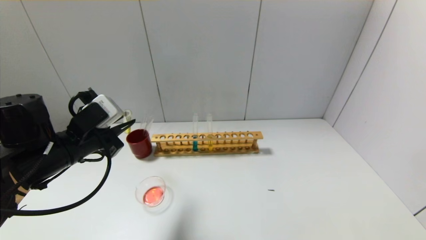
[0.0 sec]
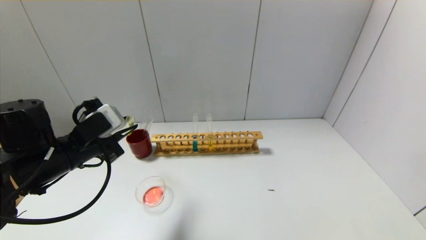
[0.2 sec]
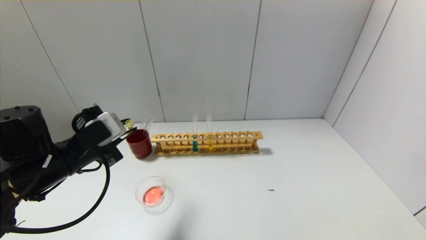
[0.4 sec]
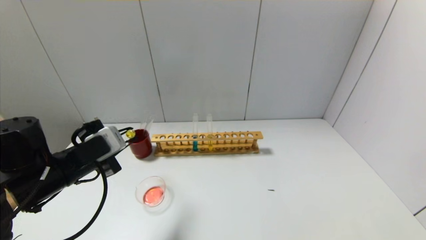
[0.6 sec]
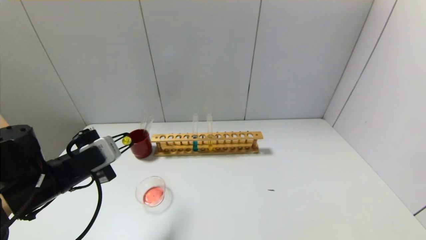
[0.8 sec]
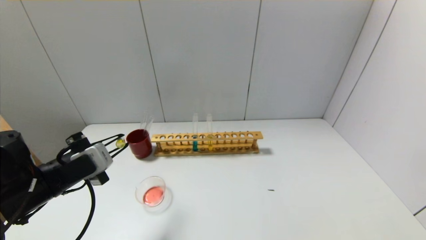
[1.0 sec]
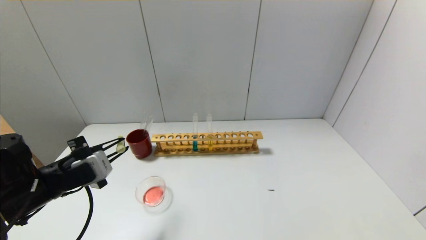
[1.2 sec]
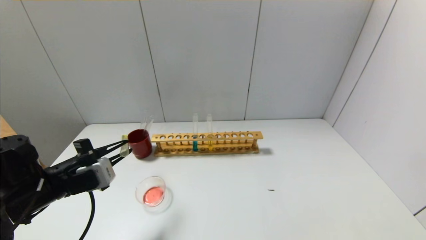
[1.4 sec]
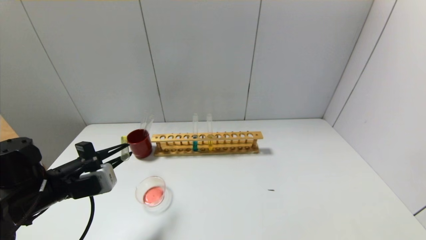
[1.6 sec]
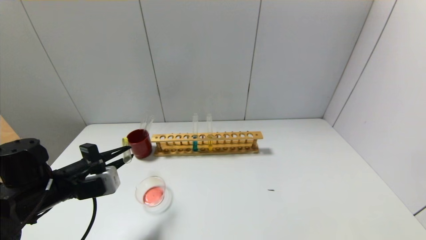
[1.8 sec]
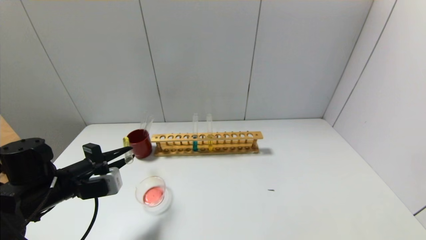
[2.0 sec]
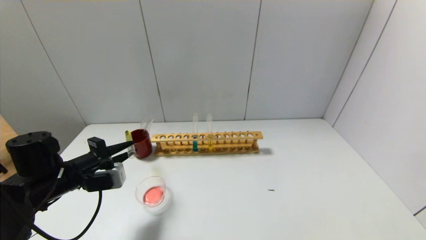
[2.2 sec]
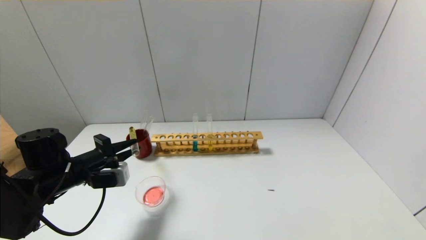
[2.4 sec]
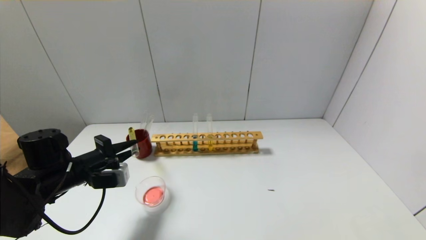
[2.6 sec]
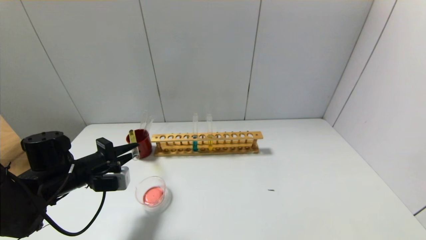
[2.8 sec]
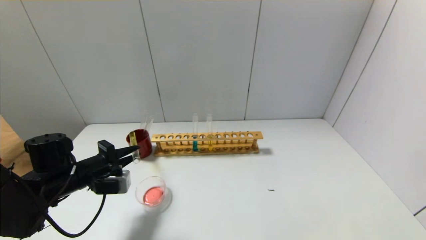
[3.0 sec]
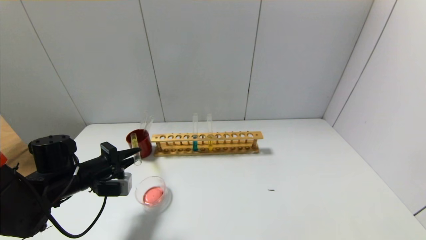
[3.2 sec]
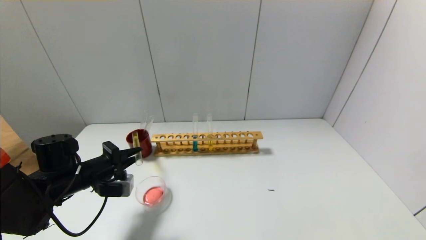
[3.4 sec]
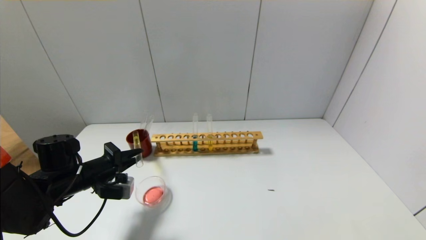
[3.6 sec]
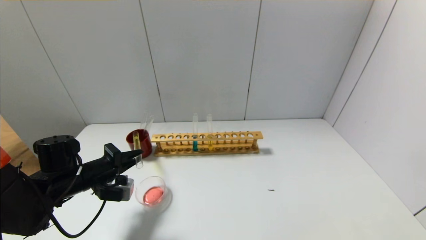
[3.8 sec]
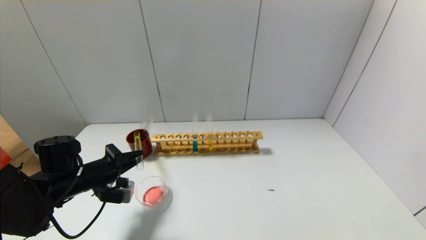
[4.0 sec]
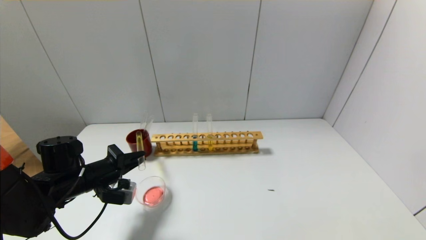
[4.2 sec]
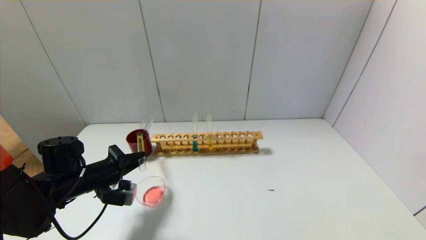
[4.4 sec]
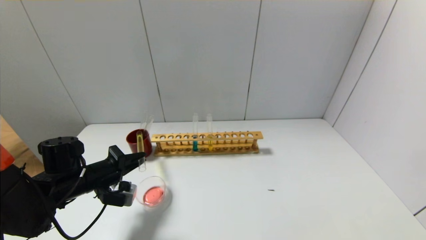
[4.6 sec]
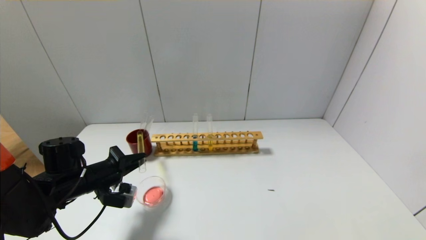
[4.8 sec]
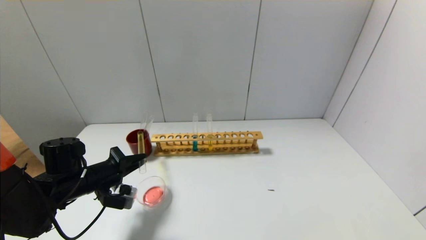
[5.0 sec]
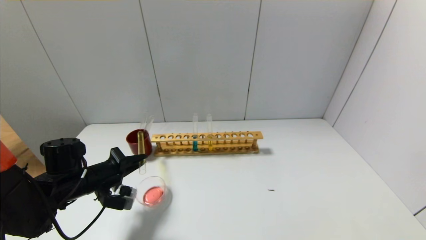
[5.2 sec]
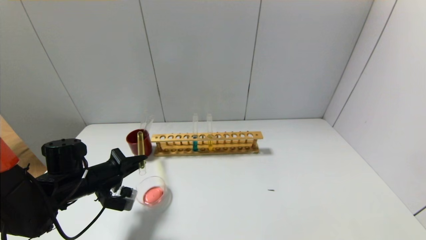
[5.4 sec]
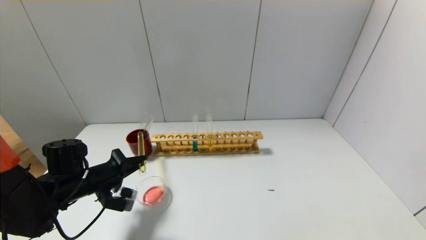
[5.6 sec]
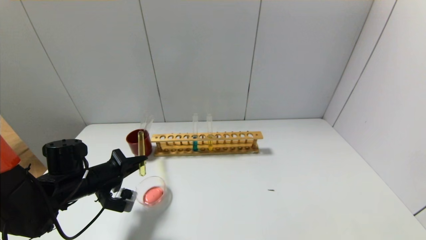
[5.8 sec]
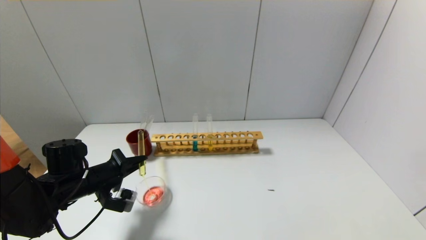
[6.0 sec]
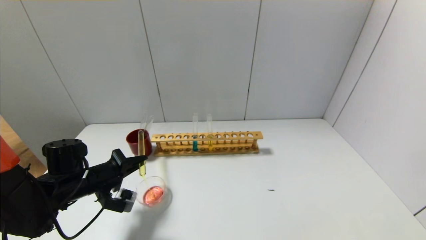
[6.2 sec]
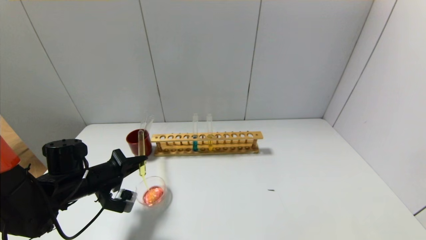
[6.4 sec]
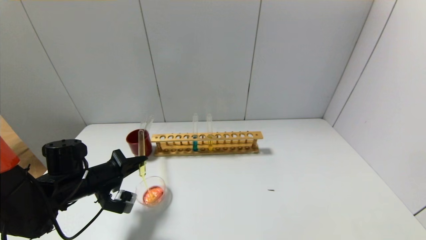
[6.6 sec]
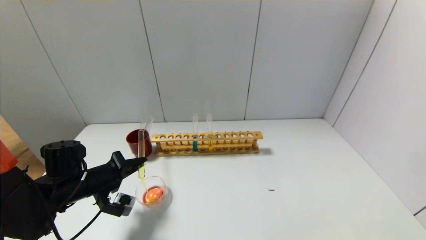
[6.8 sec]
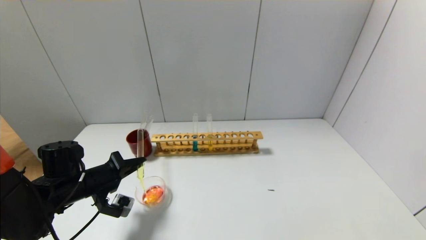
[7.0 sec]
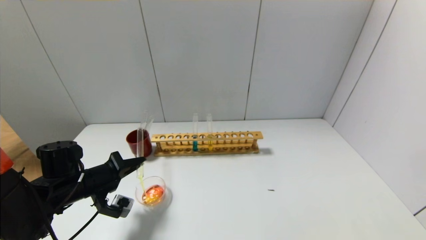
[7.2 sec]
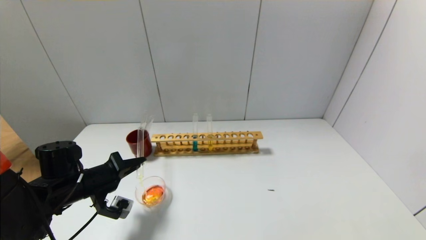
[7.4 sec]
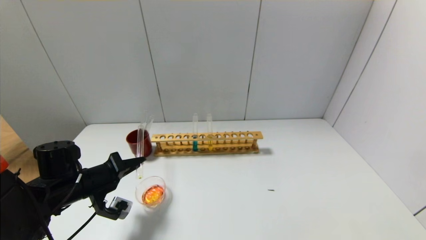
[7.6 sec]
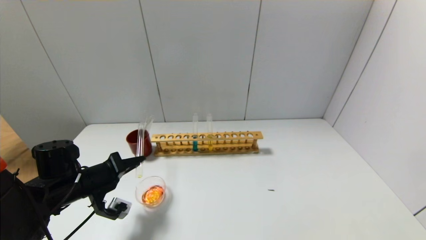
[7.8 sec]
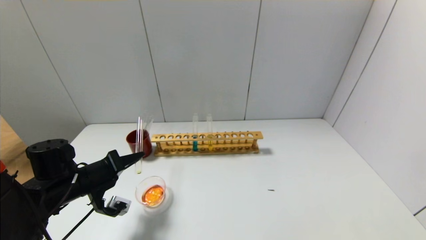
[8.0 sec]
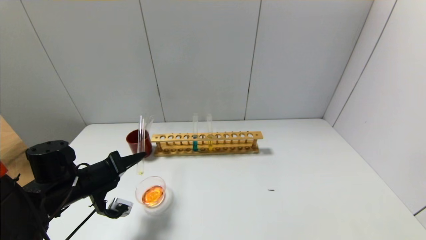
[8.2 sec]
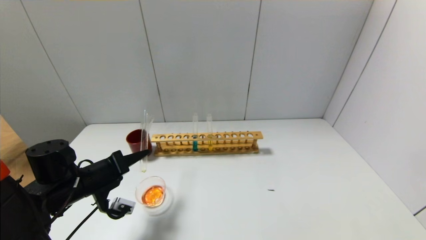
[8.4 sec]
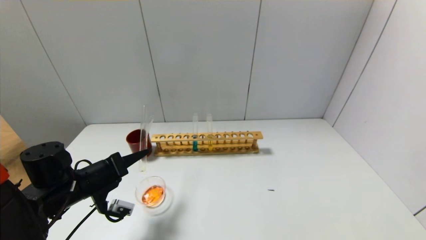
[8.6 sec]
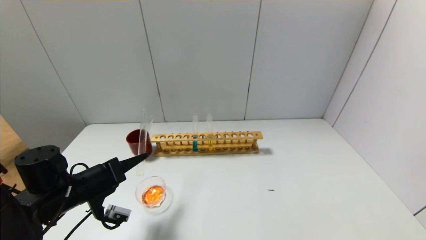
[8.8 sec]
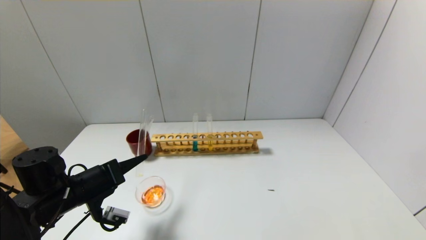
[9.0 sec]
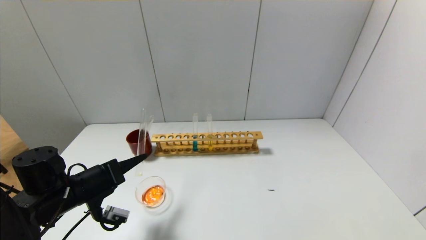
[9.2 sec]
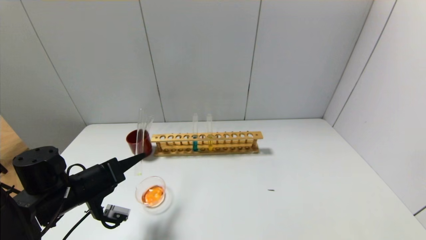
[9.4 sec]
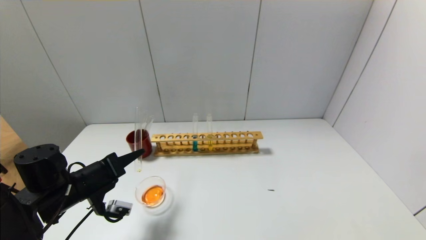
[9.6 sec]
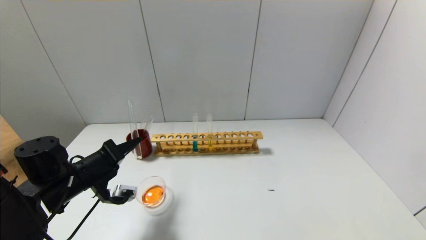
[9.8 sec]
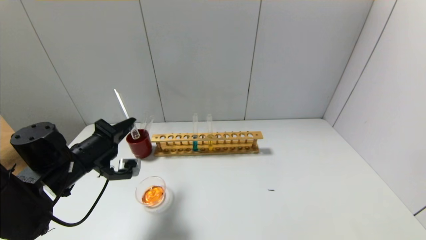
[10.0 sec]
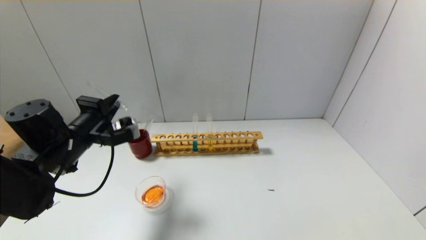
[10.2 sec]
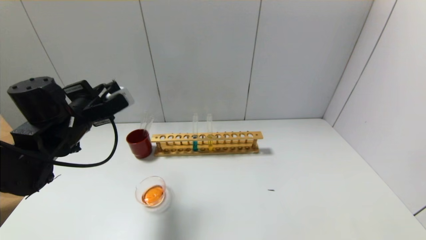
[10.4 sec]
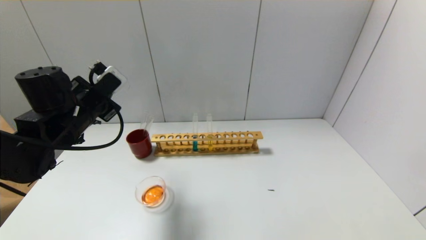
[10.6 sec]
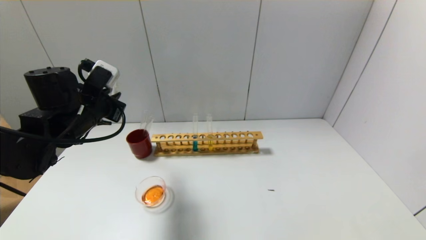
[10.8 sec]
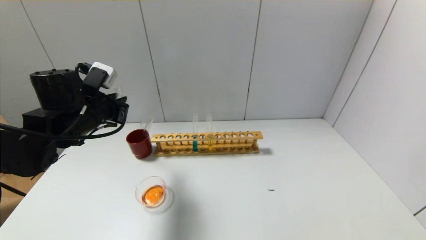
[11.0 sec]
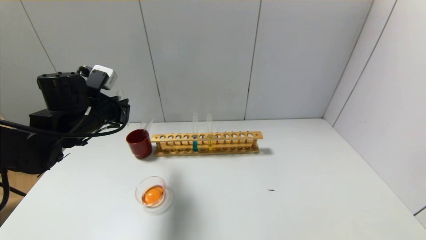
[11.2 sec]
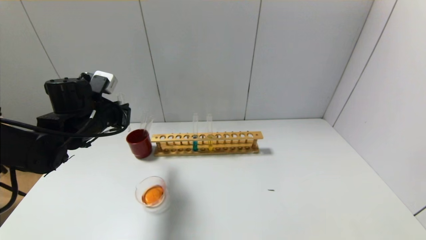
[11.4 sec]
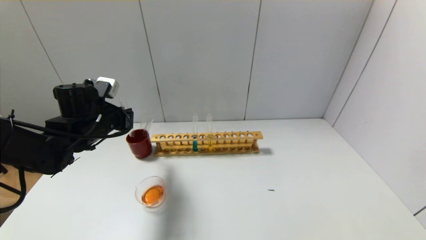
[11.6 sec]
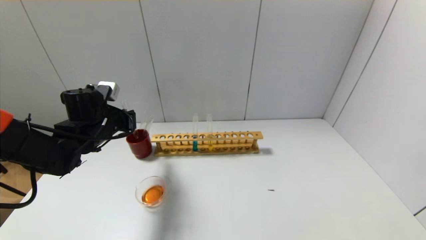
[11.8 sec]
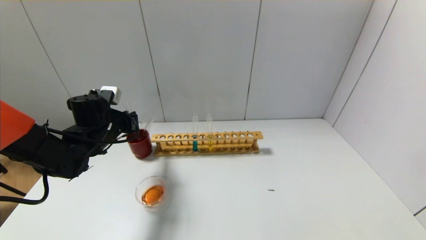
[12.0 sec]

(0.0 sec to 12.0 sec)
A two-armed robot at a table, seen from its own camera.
Step, 0.0 sec - 9.6 sec: Pour the yellow reagent into the graduated cylinder with the left gripper.
0.0 sec - 1.6 sec: The left gripper moves downward, roughly 5 cm.
1.6 sec - 3.0 sec: The left gripper ends up some 5 cm from where it was.
3.0 sec - 4.4 sec: The grippers move only a little.
4.4 sec - 6.0 sec: The grippers stay close to where they were, moving slightly.
6.0 sec - 7.6 sec: The grippers stay close to where they were, moving slightly.
9.0 sec - 10.4 sec: The left gripper travels upward and forward by about 15 cm.
10.4 sec - 12.0 sec: The left gripper goes some 10 cm downward and forward.

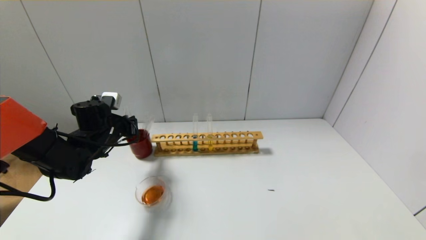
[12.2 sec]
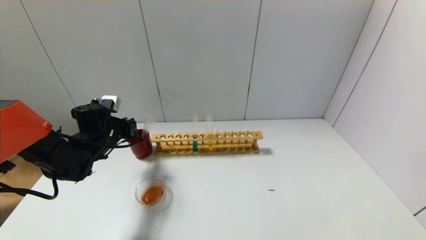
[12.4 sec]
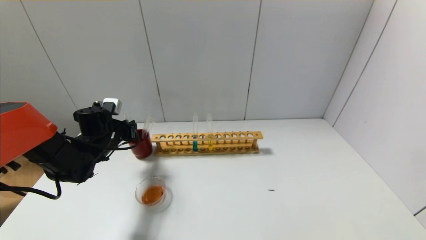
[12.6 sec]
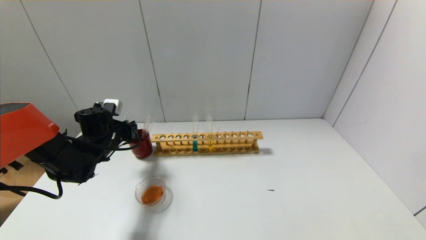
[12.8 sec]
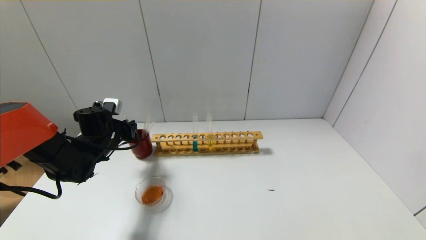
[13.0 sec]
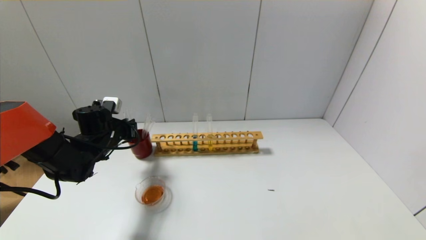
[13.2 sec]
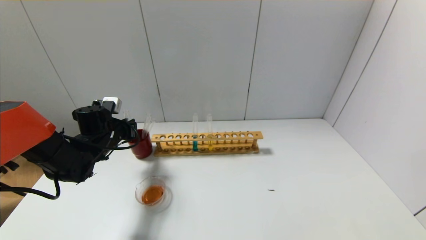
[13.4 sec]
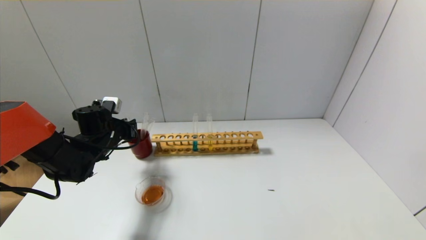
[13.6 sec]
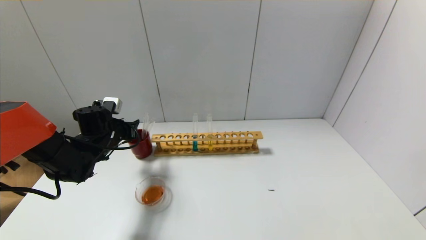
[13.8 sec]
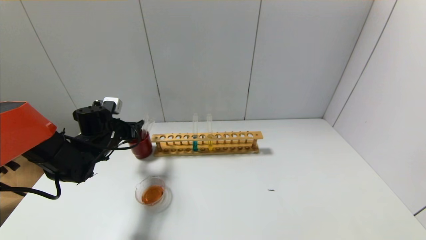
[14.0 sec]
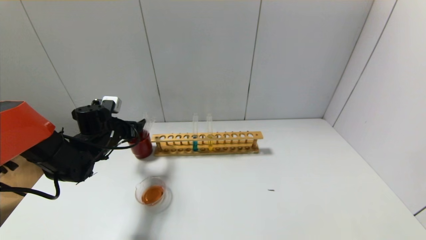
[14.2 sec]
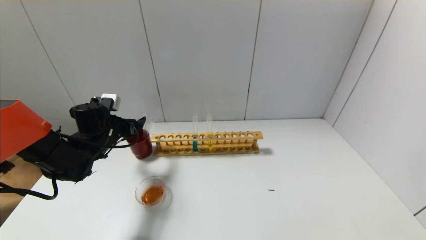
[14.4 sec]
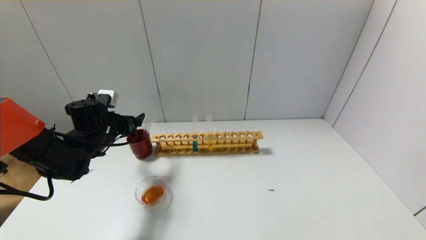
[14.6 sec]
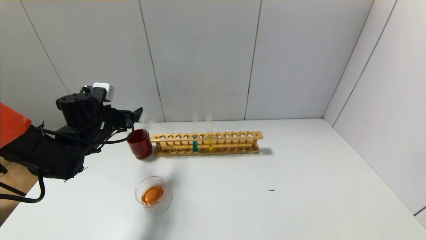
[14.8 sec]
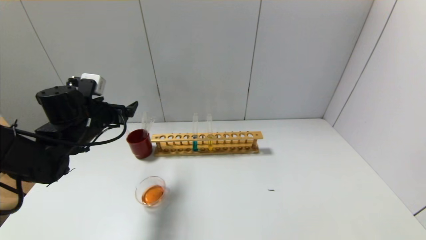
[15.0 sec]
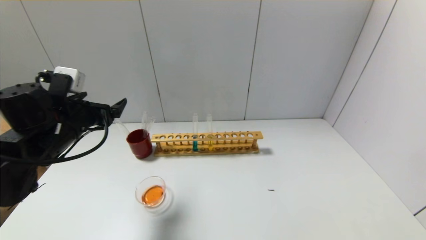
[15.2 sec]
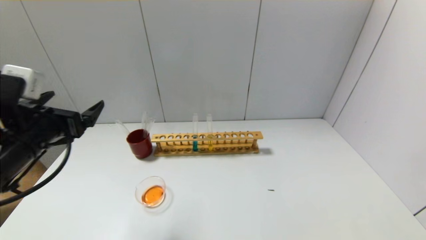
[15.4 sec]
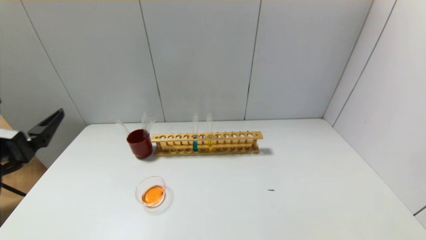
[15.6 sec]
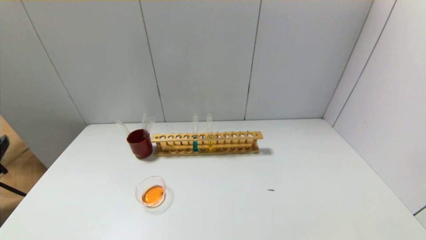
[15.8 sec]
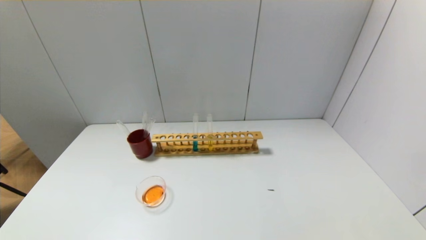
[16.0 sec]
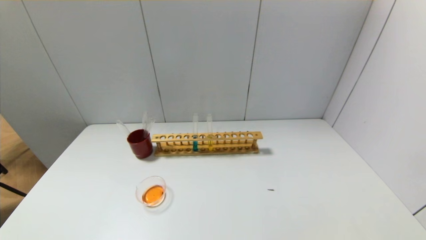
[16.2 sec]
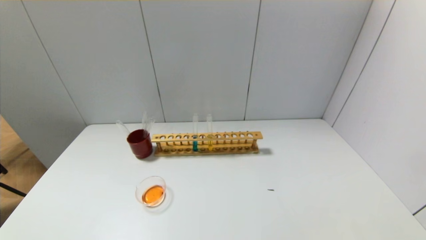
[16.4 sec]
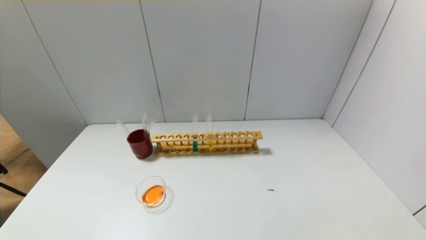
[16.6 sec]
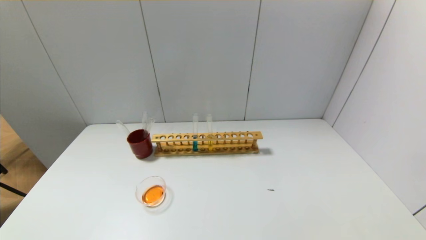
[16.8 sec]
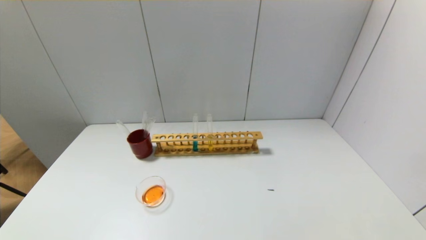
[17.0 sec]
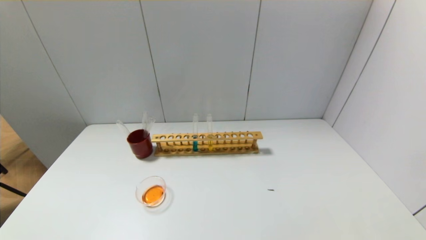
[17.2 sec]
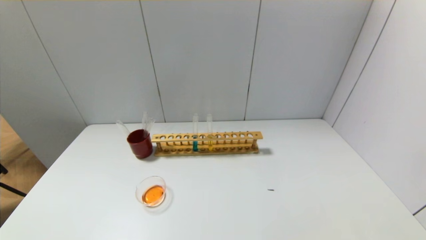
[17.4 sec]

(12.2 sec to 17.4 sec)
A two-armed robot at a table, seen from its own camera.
12.2 sec - 14.0 sec: The left gripper opens up.
14.0 sec - 15.6 sec: The left gripper goes about 30 cm backward and upward.
15.6 sec - 17.4 sec: The left gripper travels downward and backward by roughly 20 cm.
